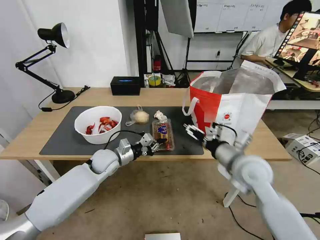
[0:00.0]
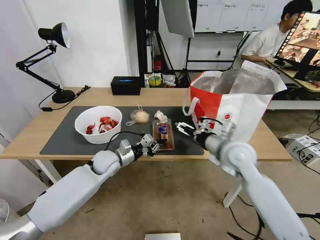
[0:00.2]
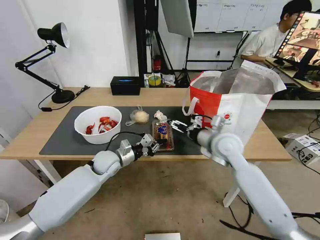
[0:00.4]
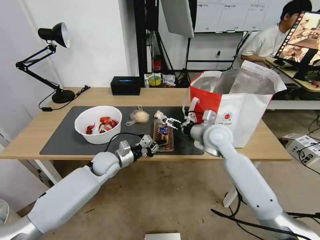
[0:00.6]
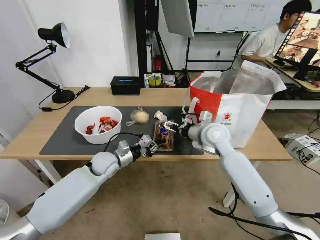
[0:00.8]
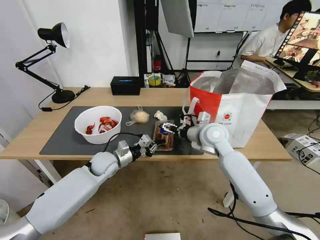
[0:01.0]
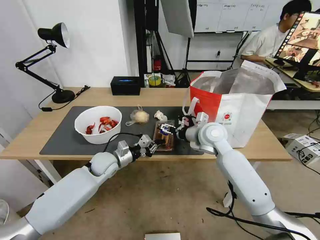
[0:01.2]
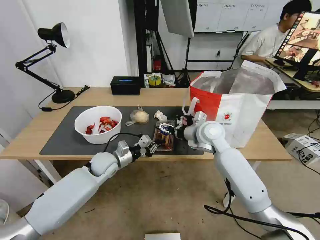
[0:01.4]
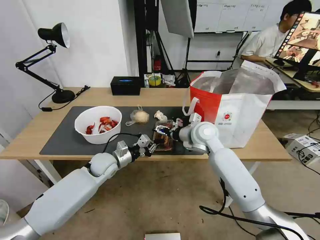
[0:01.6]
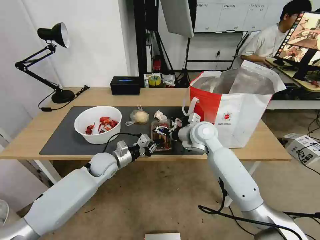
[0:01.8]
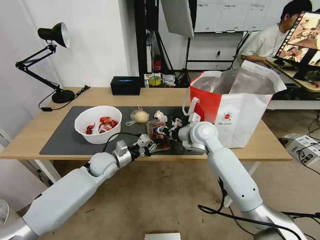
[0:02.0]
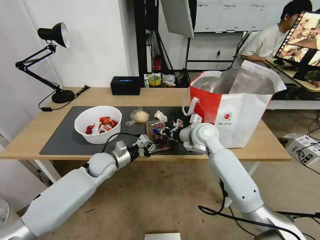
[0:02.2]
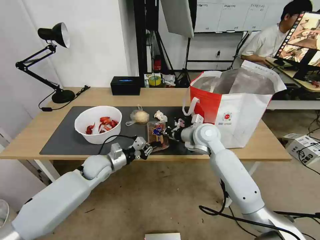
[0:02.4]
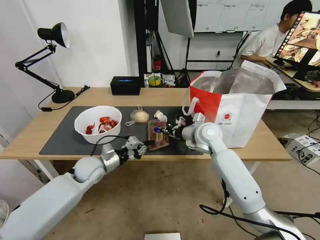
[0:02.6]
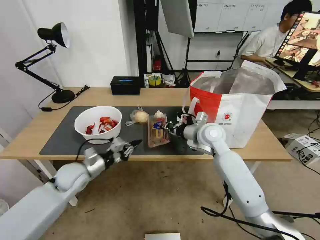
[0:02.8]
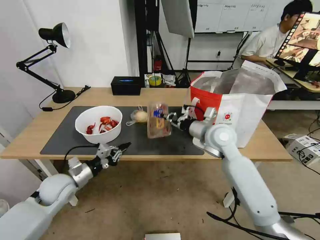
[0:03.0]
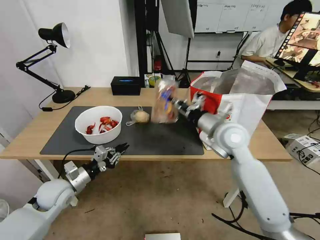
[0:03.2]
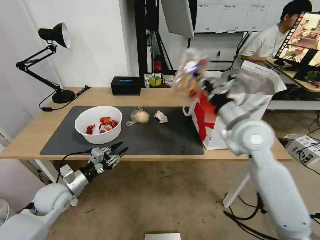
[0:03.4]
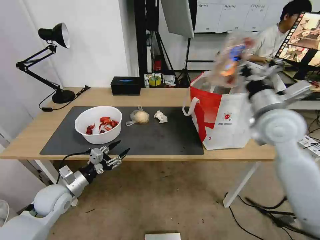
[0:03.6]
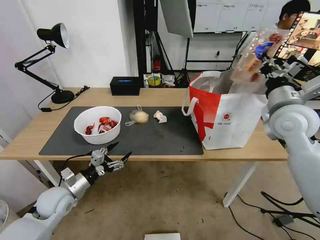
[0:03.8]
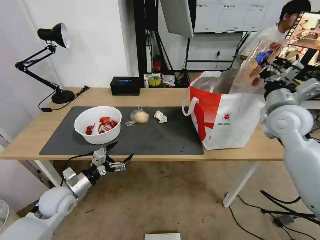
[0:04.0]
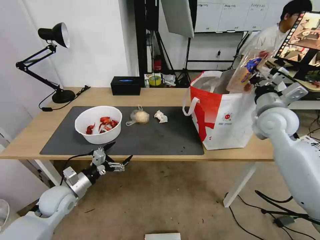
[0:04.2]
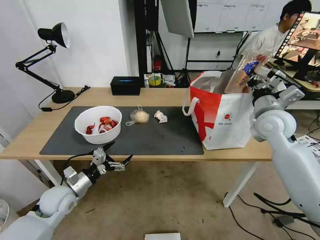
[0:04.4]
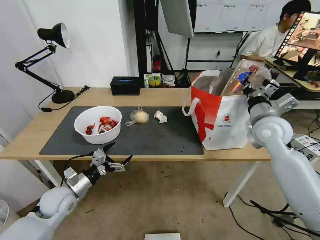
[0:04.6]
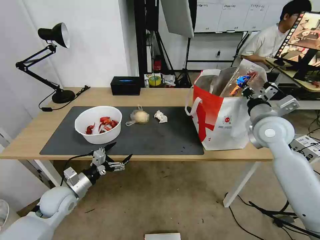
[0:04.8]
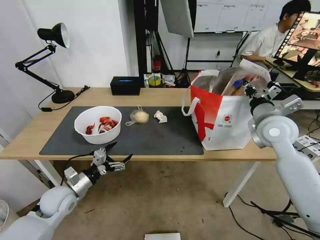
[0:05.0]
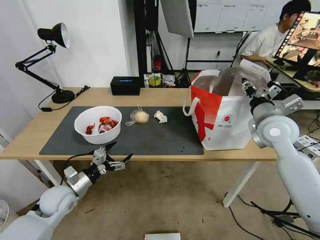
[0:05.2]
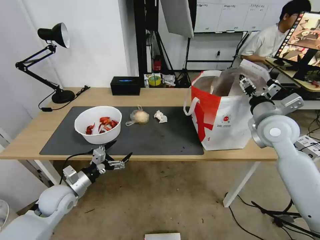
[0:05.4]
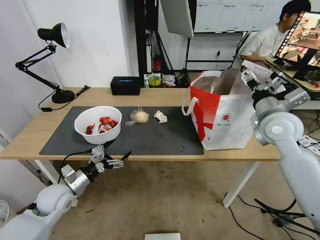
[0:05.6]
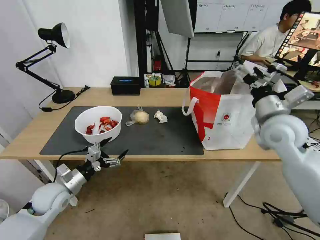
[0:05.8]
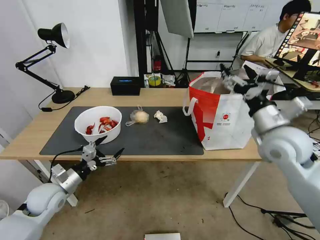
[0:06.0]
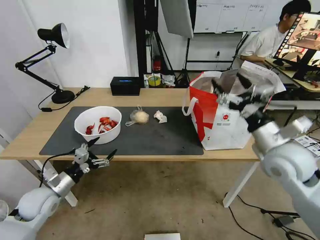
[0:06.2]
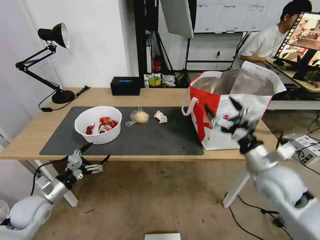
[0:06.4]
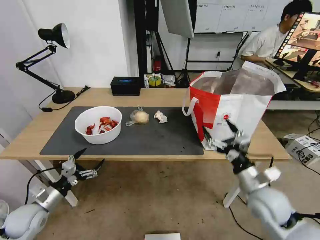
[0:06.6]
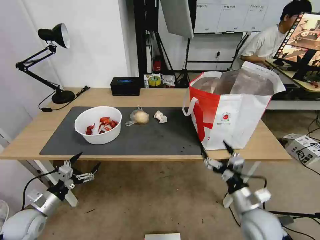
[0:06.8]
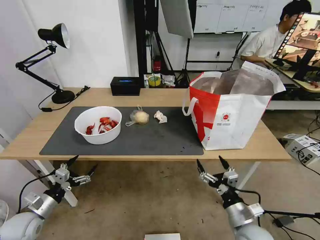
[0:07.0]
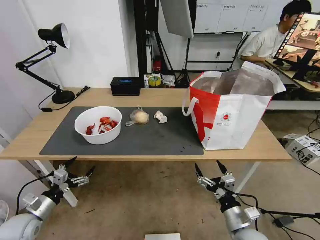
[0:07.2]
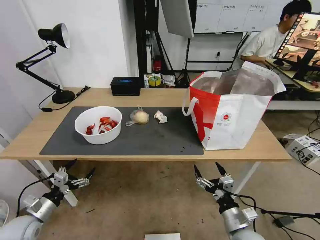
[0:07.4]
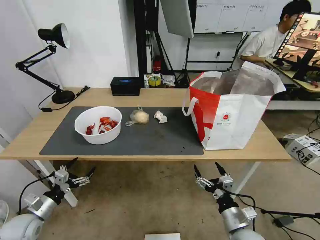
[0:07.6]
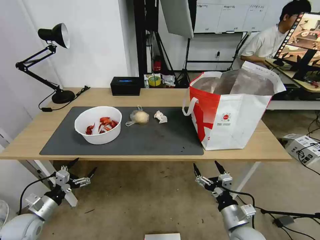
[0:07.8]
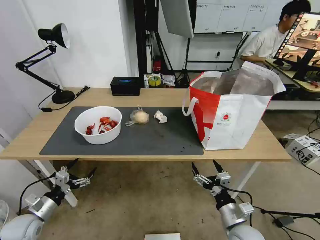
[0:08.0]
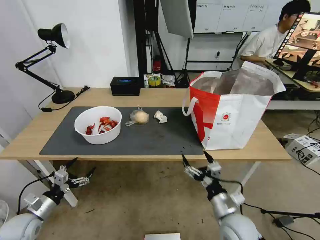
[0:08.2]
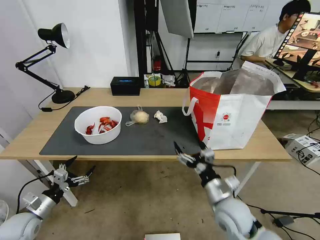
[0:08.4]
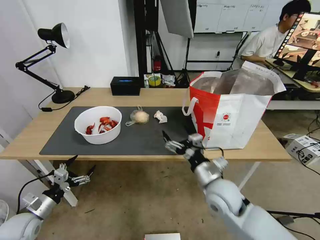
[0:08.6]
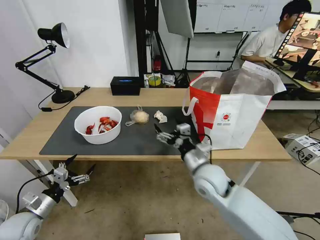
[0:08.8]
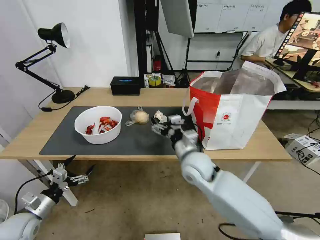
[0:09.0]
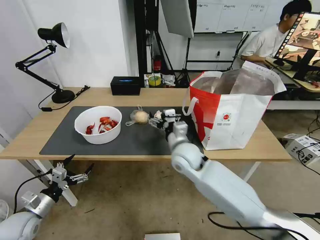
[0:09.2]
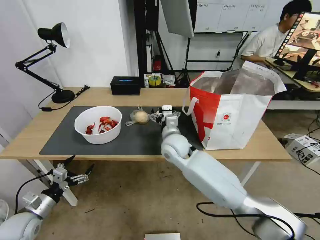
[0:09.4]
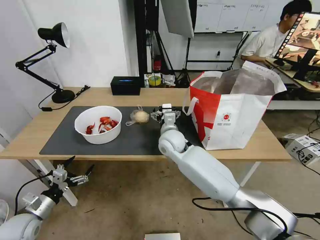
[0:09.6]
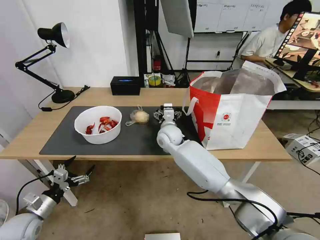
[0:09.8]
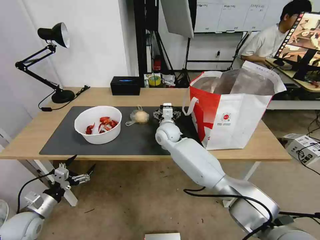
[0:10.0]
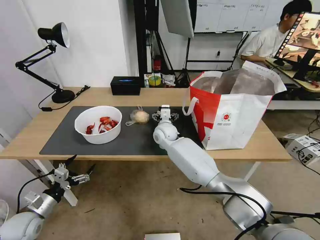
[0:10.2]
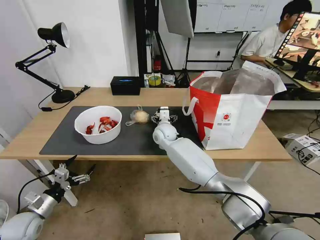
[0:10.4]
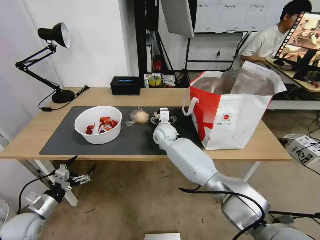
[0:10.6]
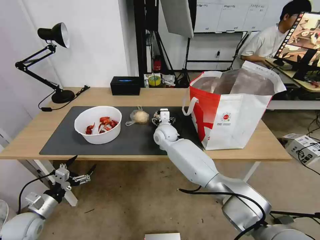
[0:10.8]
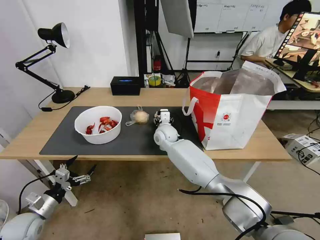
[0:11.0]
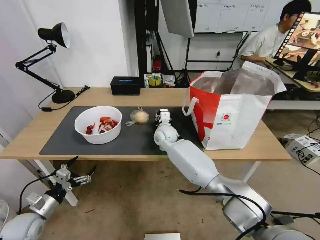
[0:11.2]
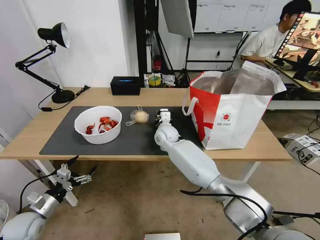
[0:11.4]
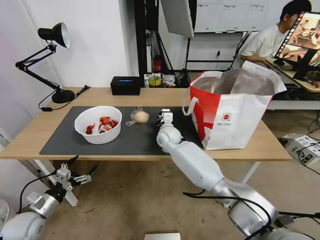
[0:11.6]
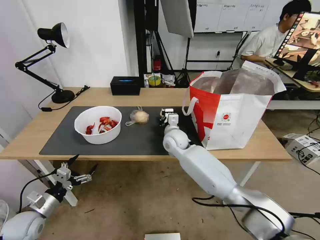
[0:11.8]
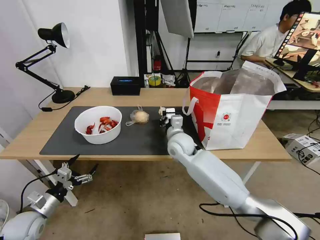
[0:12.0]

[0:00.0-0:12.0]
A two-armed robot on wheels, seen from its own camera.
Task of the whole recording: Pick up the trash from the table and place it into the takeout bag.
0:00.0 to 0:01.6: The right gripper is displaced forward and to the left by some 15 cm.
0:01.6 to 0:03.0: The left gripper heads to the left and backward, covering approximately 10 cm, while the right gripper closes up.
0:03.0 to 0:04.4: The right gripper goes approximately 15 cm to the right and upward; the left gripper goes about 5 cm backward, and opens its fingers.
0:04.4 to 0:06.0: The right gripper goes some 10 cm backward, and opens.
0:06.0 to 0:07.6: The right gripper moves downward and backward, approximately 30 cm. Meanwhile the left gripper moves to the left, downward and backward, some 15 cm.
0:07.6 to 0:09.0: The right gripper moves forward, to the left and upward, approximately 25 cm.
0:09.0 to 0:10.4: The right gripper moves forward and to the left, approximately 20 cm.
0:10.4 to 0:12.0: The right gripper is displaced backward and to the right by about 10 cm, and closes up.

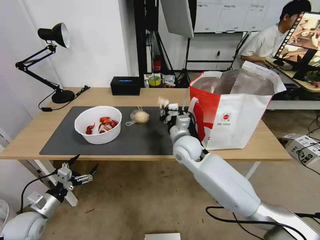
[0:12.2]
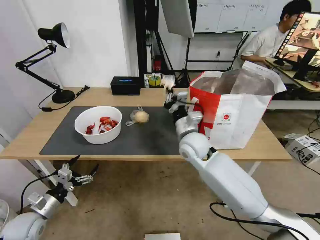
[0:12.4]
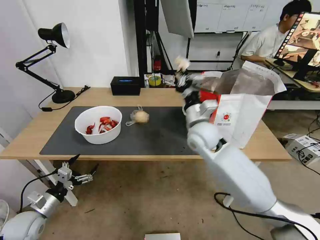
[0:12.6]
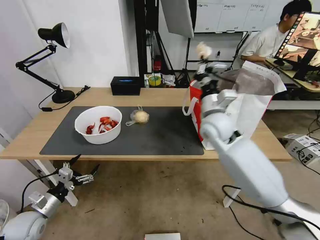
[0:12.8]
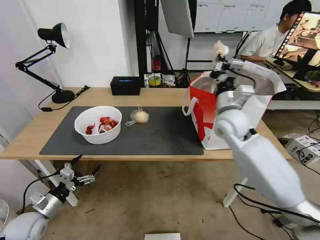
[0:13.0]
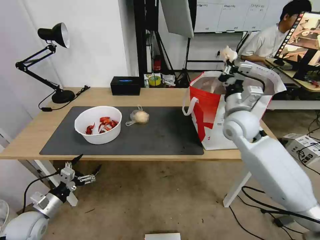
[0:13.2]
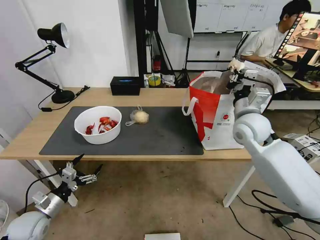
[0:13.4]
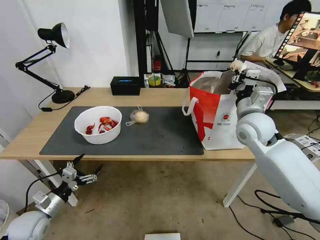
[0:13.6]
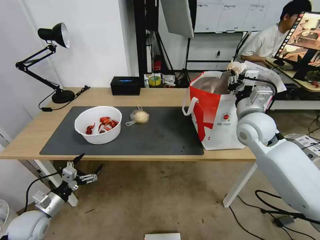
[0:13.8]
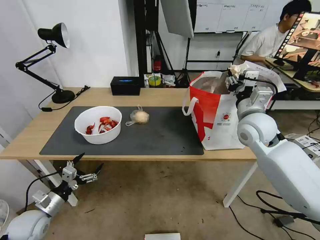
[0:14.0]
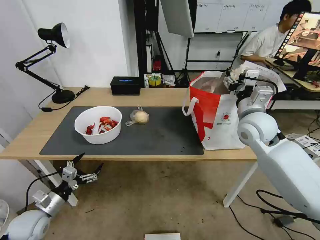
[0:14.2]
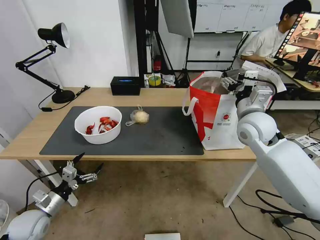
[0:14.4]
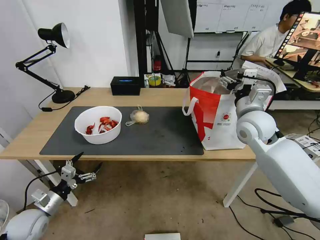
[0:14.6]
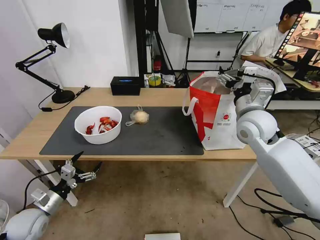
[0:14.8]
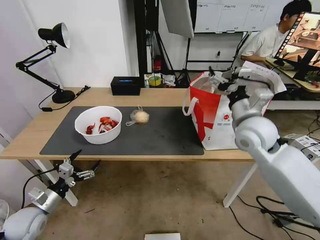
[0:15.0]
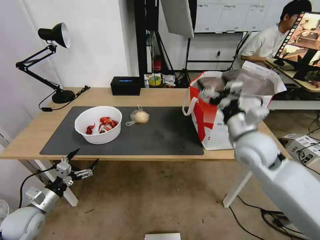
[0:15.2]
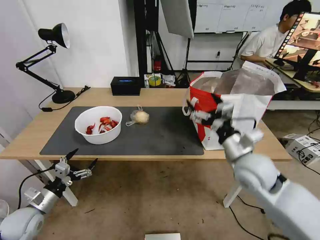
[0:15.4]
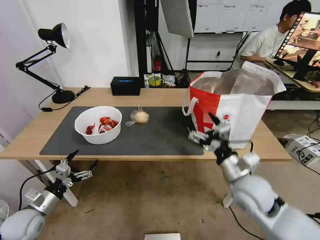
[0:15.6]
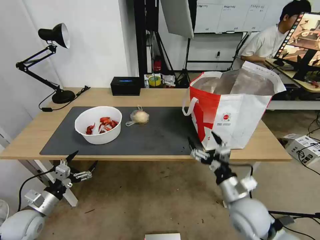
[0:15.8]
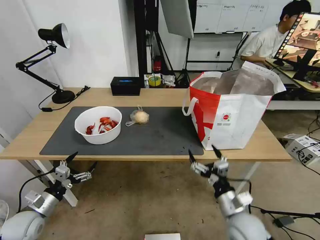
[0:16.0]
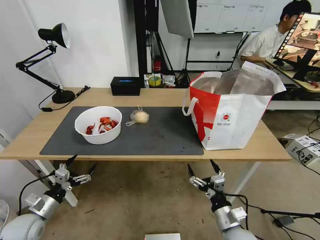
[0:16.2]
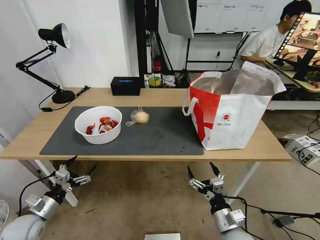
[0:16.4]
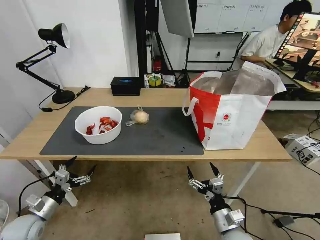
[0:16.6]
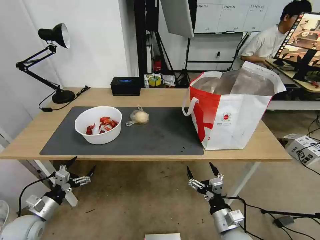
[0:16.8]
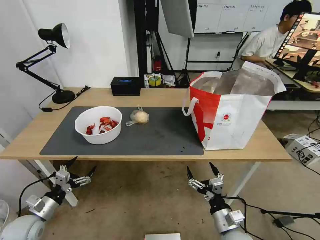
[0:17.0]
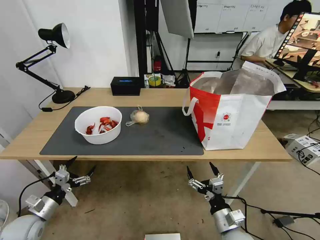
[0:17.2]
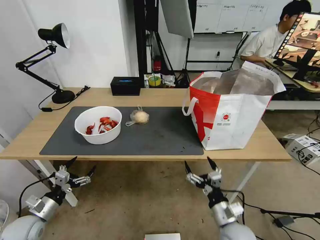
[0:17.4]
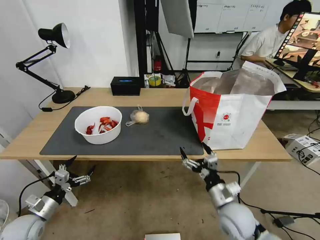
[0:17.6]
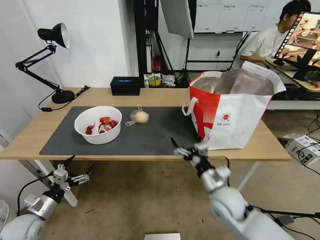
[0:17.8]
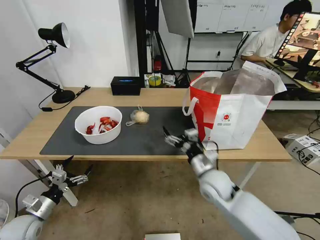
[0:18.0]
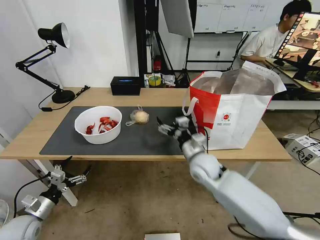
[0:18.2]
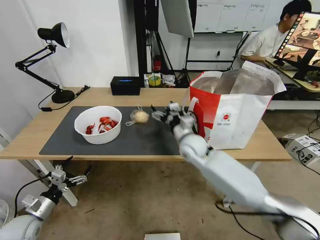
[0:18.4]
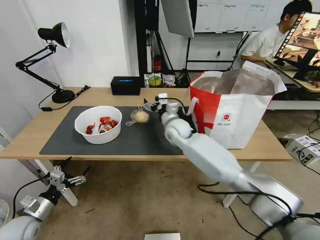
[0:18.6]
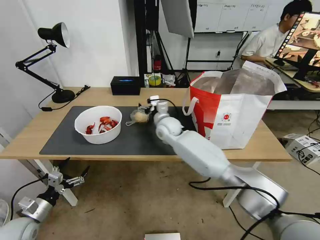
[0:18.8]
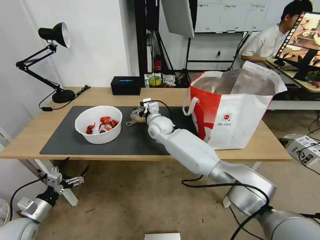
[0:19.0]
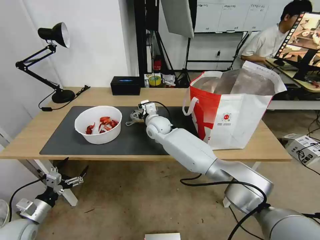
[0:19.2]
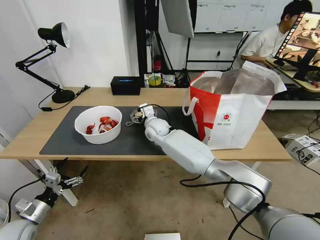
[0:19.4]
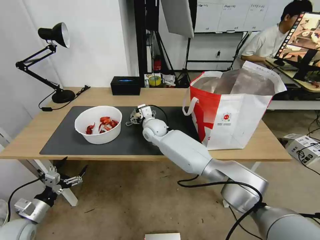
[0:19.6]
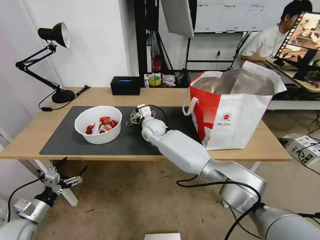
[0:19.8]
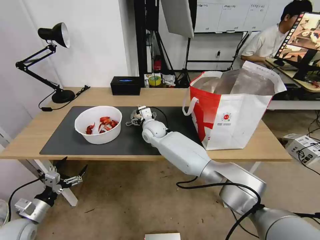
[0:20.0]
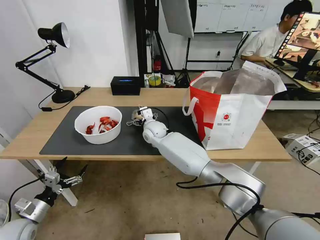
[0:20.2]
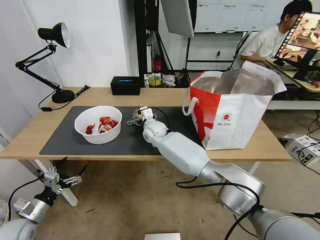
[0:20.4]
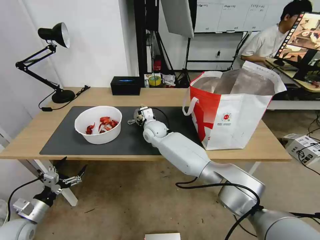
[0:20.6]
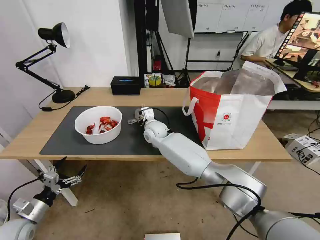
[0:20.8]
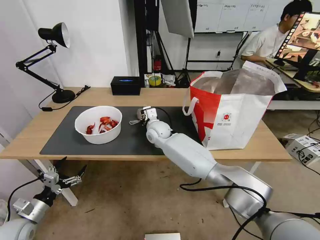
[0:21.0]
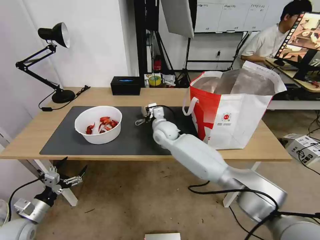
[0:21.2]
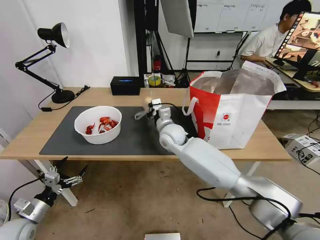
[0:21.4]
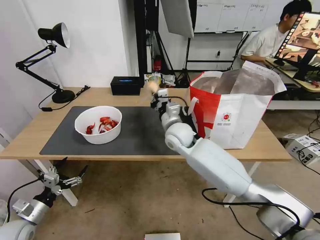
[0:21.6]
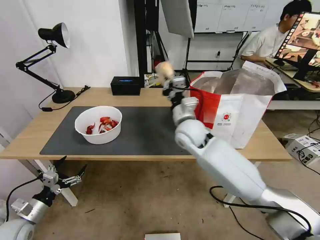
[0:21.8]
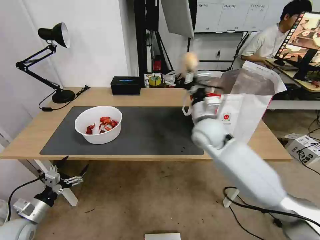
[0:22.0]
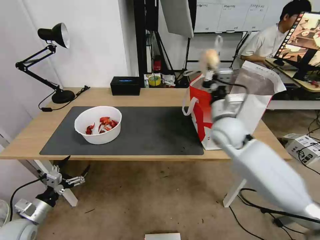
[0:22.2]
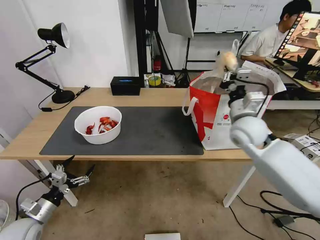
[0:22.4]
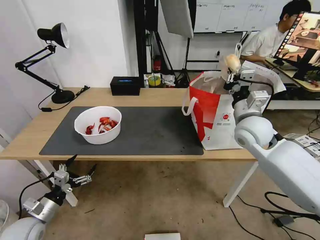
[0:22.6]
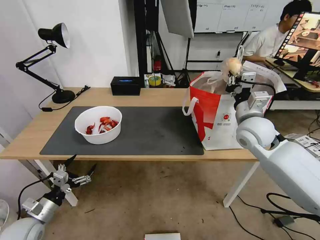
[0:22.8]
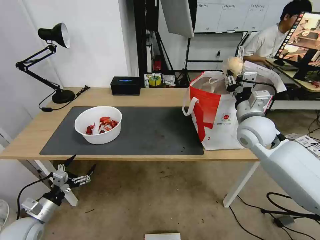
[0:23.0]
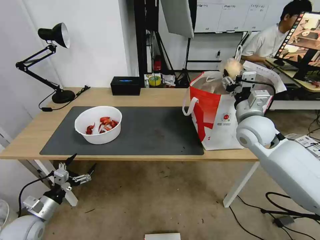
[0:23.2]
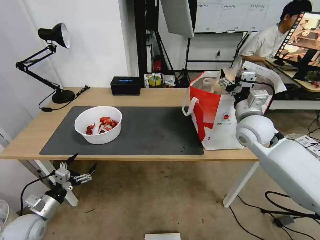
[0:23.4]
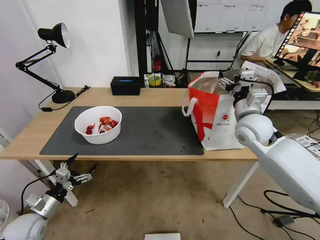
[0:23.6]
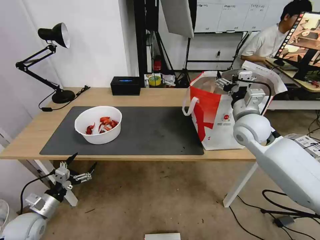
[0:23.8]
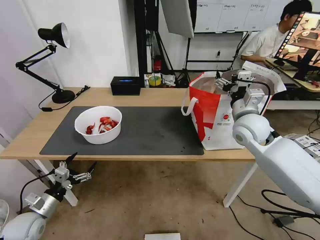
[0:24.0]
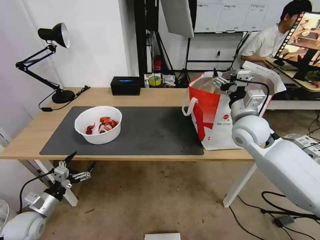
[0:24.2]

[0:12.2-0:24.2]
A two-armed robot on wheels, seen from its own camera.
Task of the whole recording: Pick up the trash from the table and place it into the takeout bag.
0:12.2 to 0:13.8: The right gripper heads to the right and upward, covering about 20 cm.
0:13.8 to 0:15.2: The right gripper shifts roughly 5 cm backward, and opens up.
0:15.2 to 0:16.6: The right gripper travels downward and backward by roughly 30 cm.
0:16.6 to 0:18.2: The right gripper goes approximately 25 cm forward and upward.
0:18.2 to 0:19.8: The right gripper moves to the left and forward, some 25 cm.
0:19.8 to 0:21.2: The right gripper shifts by some 5 cm, and closes.
0:21.2 to 0:22.6: The right gripper moves to the right, upward and backward, some 30 cm.
0:22.6 to 0:24.2: The right gripper opens.
